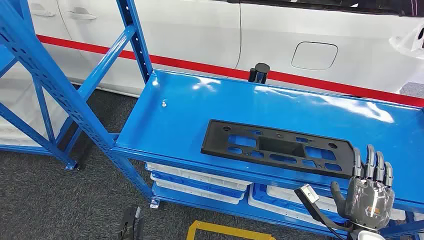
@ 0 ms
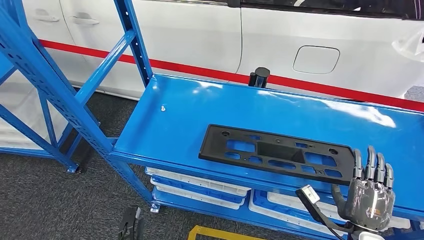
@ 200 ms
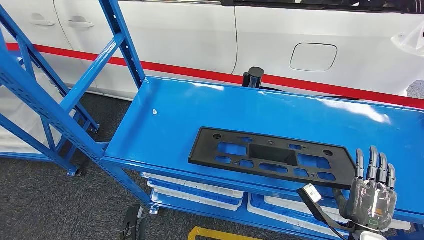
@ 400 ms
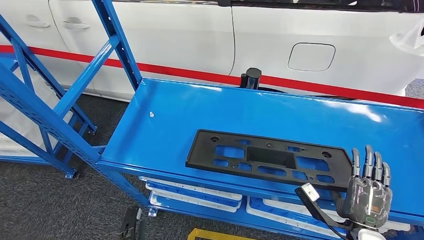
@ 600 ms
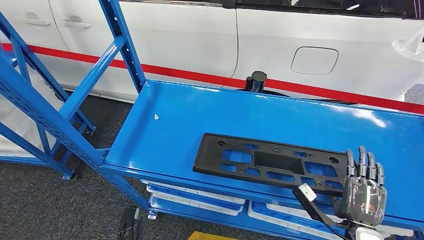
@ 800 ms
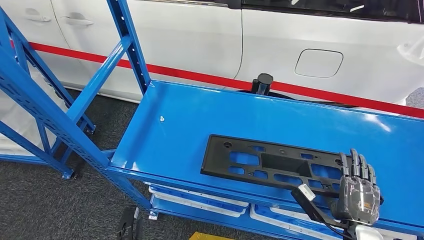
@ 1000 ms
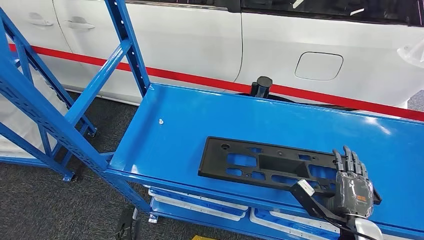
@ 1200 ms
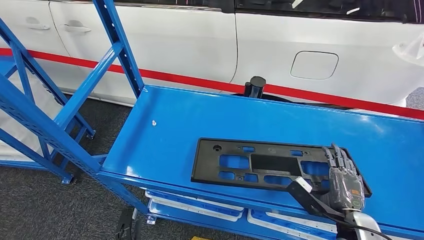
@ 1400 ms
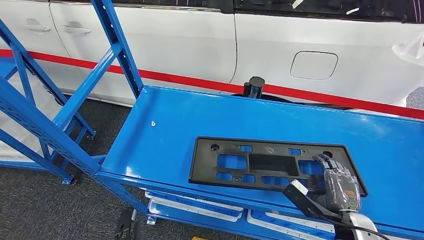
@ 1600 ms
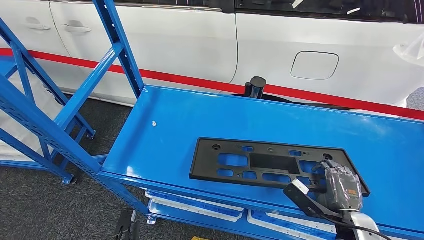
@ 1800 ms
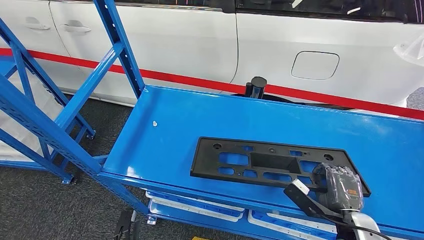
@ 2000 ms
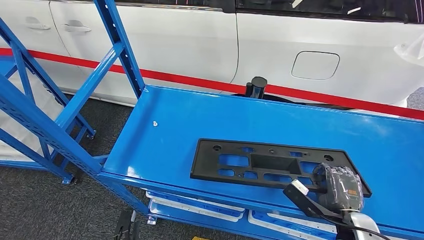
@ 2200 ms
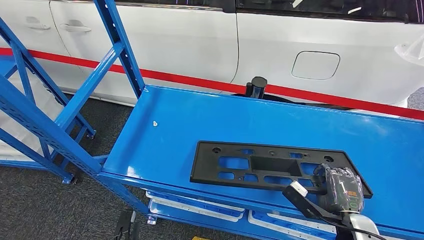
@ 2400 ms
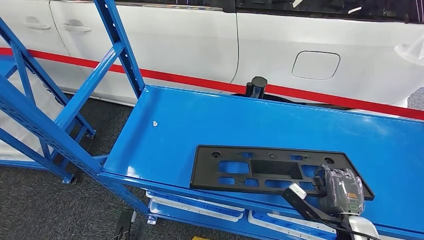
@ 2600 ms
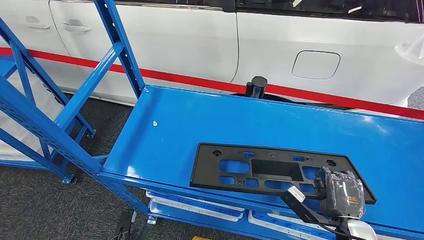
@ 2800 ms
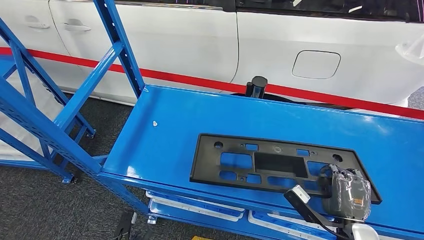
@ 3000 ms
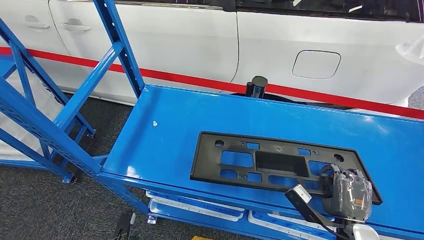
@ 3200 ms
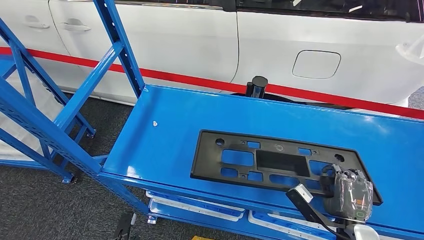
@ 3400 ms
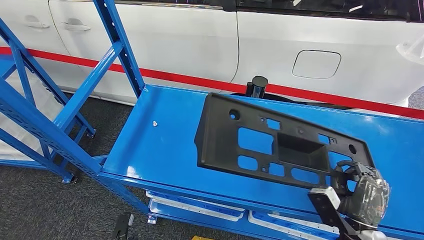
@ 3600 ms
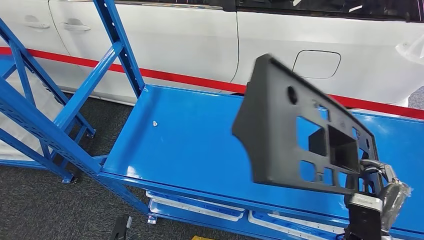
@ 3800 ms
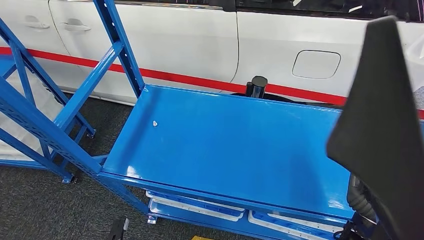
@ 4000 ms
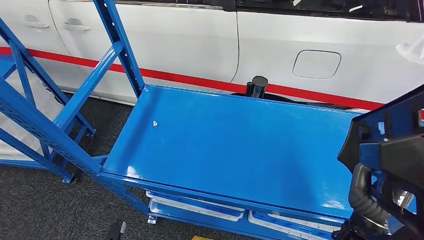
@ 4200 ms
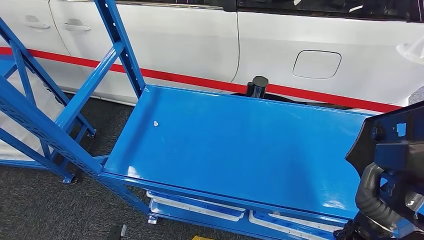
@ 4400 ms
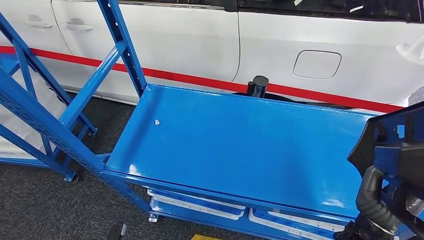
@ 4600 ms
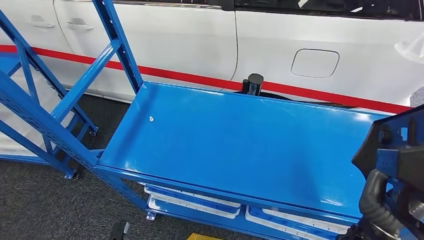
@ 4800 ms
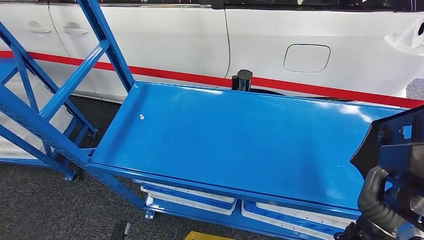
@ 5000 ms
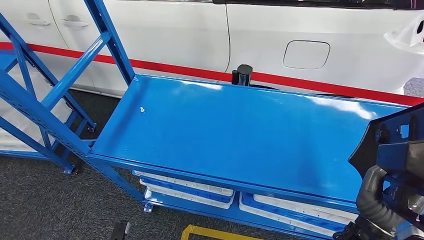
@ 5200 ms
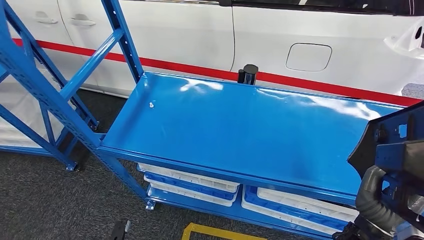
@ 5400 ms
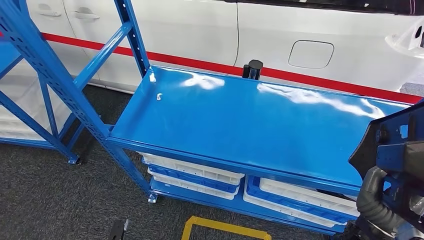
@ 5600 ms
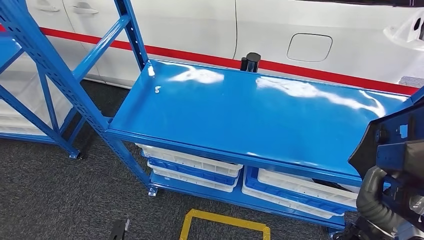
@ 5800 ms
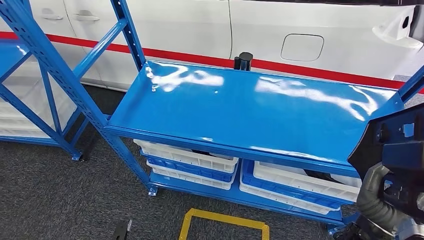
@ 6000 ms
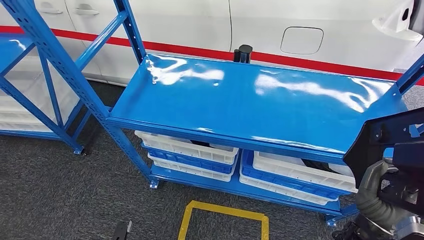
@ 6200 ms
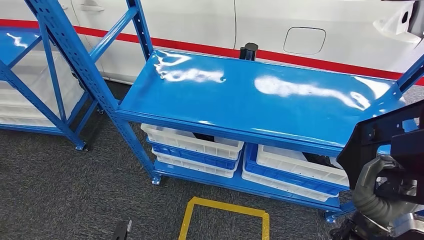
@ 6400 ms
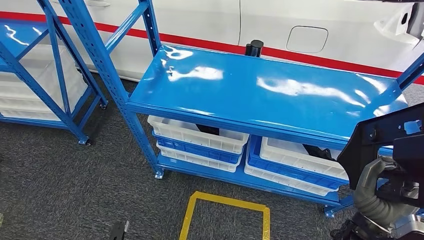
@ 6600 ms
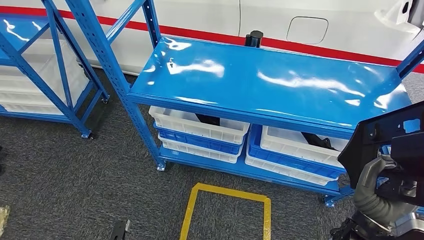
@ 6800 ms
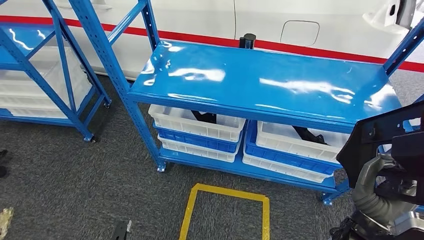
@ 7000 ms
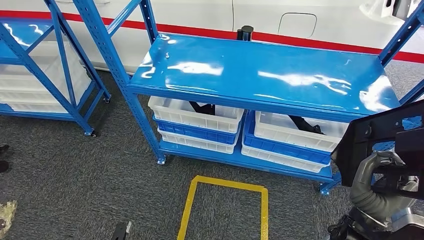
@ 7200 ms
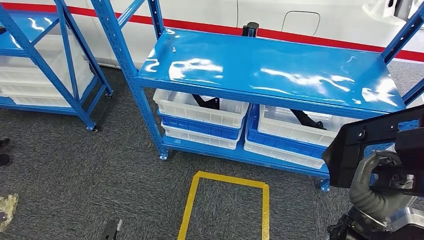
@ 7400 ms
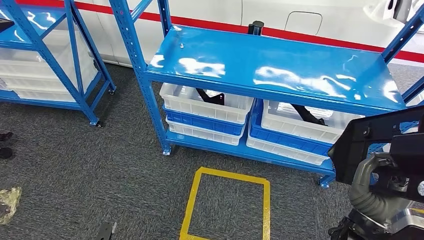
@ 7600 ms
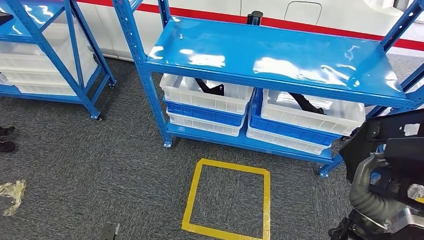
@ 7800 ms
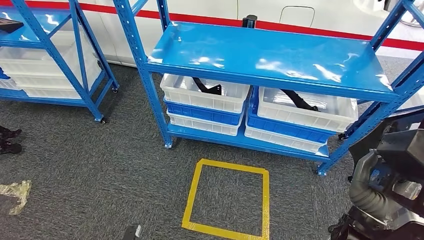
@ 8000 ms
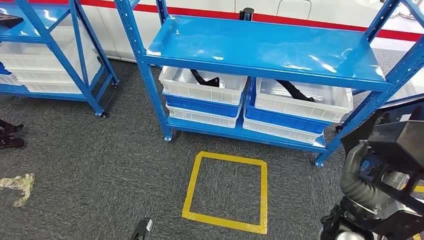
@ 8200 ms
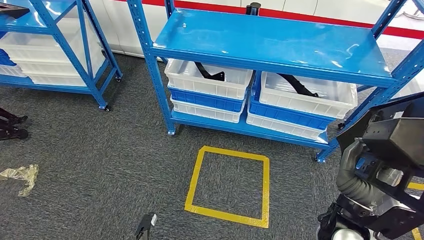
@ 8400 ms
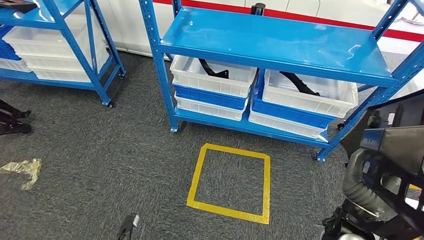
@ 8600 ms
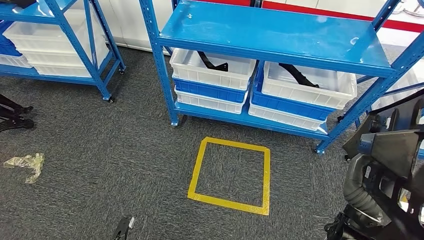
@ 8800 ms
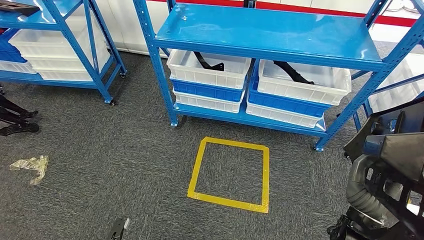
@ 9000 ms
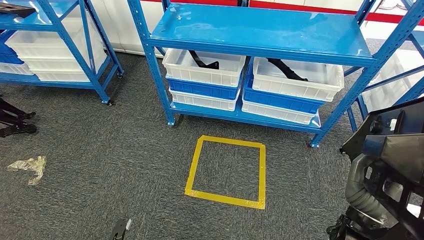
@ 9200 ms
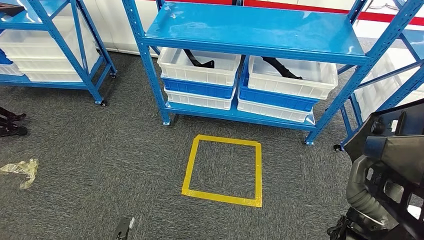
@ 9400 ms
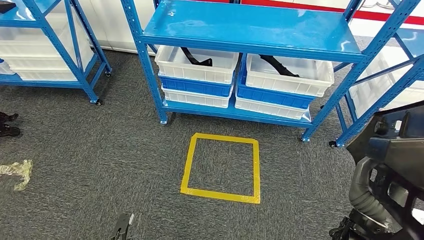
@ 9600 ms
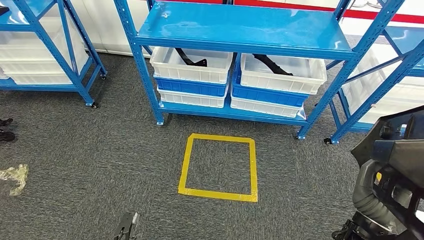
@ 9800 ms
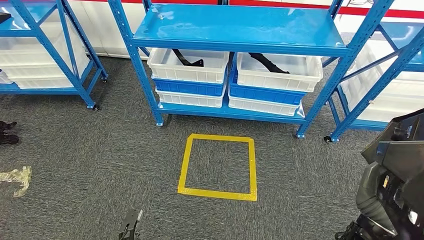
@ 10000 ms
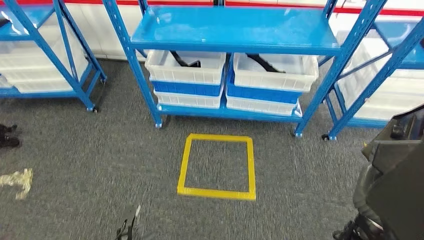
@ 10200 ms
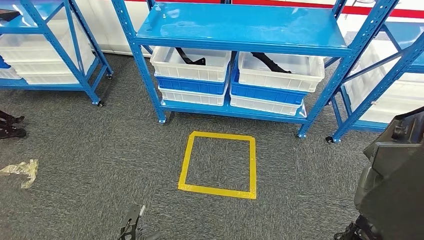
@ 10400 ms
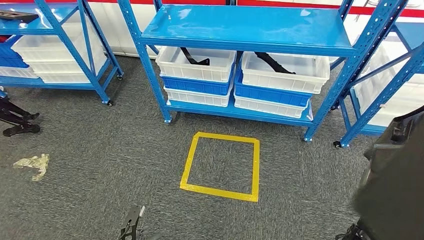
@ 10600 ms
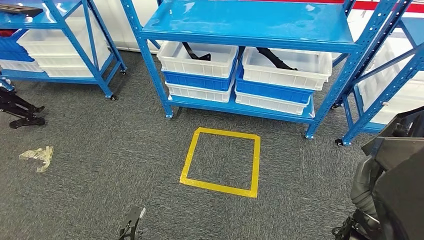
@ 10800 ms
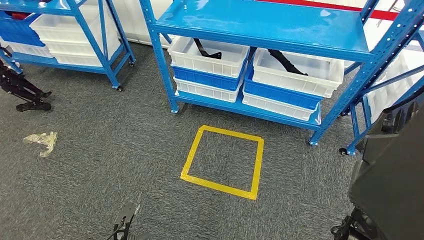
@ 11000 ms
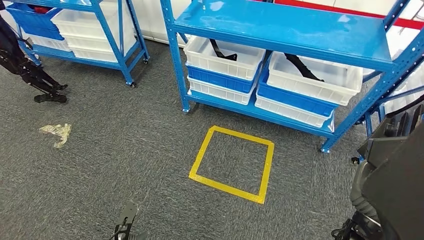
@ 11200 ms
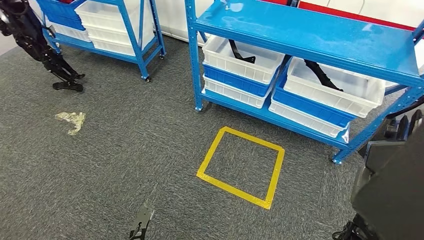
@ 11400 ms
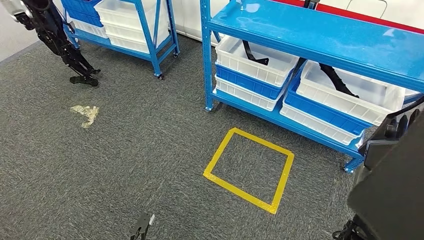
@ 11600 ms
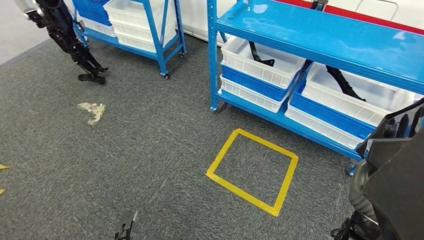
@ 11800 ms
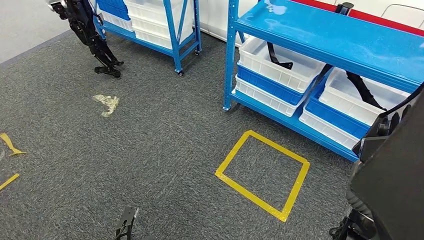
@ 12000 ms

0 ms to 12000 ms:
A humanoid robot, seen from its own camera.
Step, 0 ms to 5000 ms: Pick up the large material from the shelf.
1600 ms to 3000 ms: There are only small adjustments of the hands.
3000 ms to 4400 ms: The right hand goes roughly 5 cm upward.

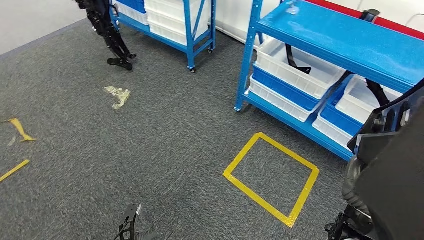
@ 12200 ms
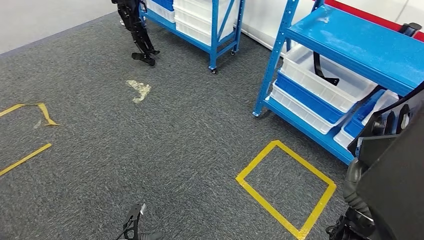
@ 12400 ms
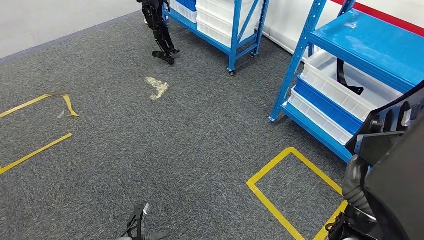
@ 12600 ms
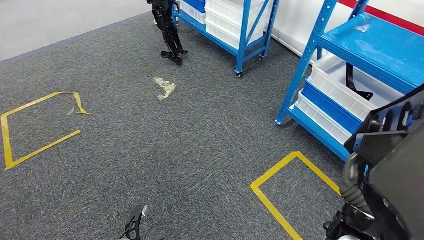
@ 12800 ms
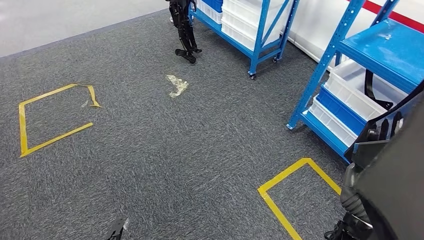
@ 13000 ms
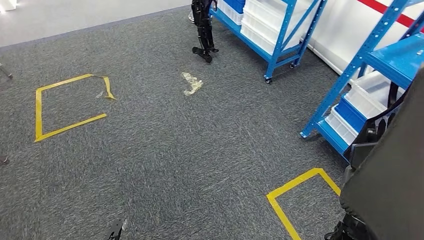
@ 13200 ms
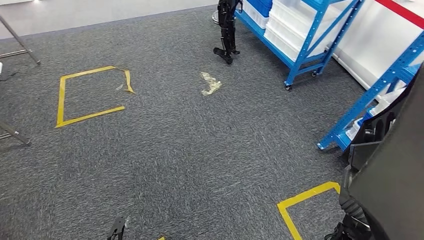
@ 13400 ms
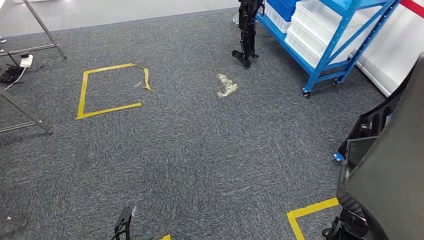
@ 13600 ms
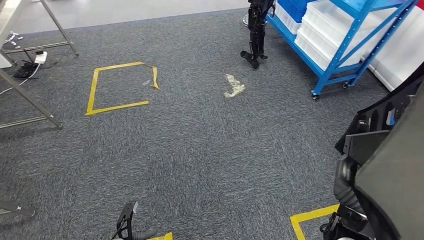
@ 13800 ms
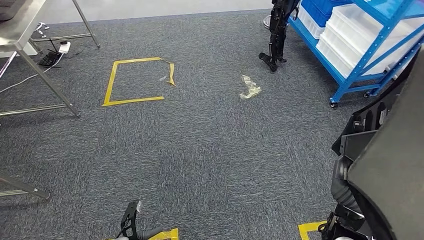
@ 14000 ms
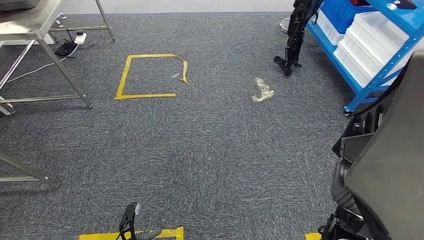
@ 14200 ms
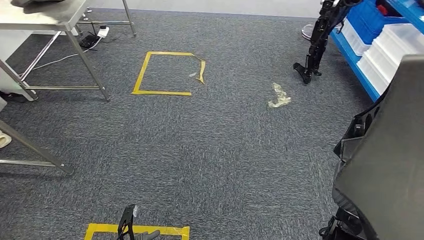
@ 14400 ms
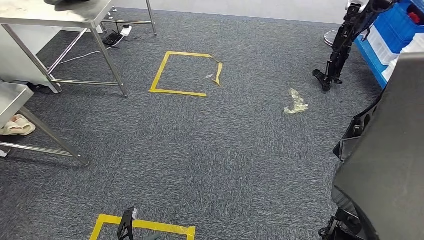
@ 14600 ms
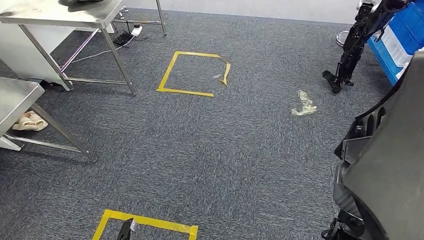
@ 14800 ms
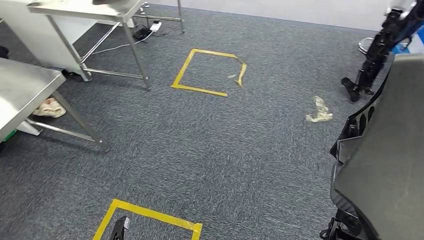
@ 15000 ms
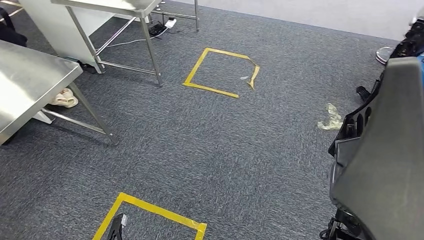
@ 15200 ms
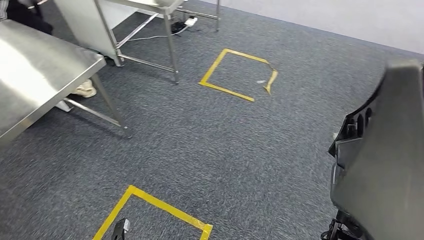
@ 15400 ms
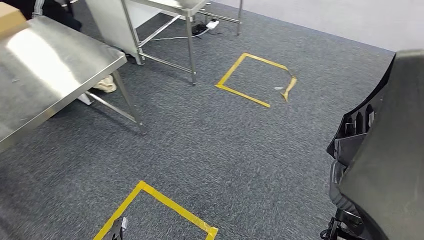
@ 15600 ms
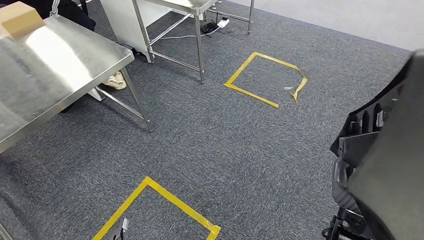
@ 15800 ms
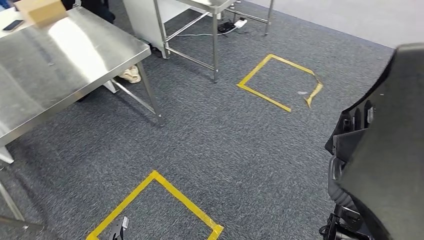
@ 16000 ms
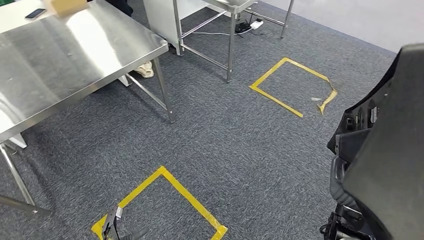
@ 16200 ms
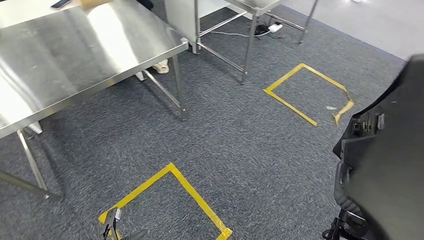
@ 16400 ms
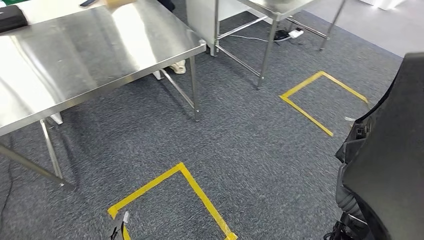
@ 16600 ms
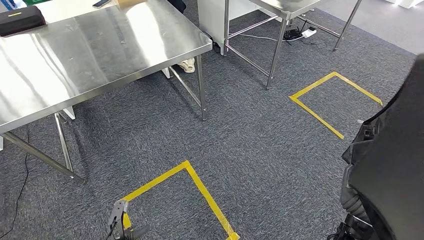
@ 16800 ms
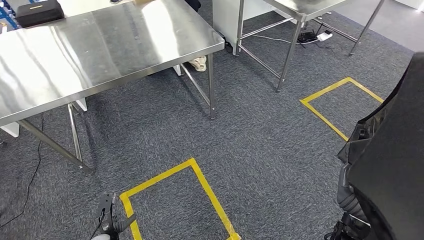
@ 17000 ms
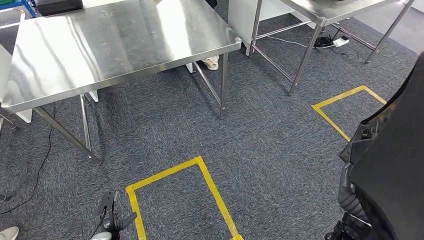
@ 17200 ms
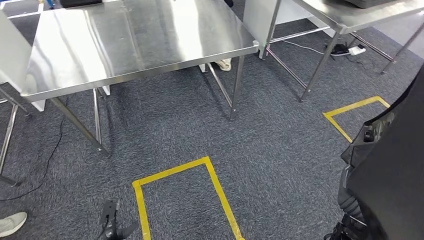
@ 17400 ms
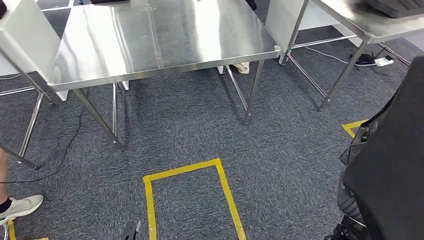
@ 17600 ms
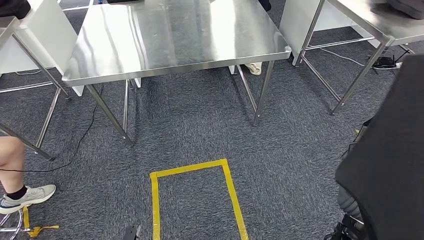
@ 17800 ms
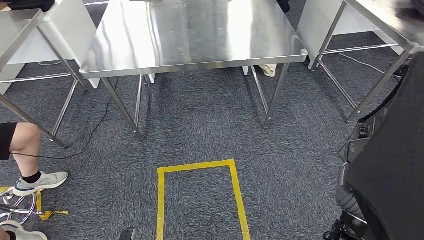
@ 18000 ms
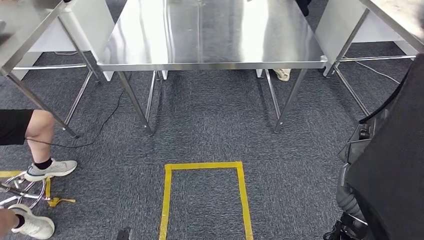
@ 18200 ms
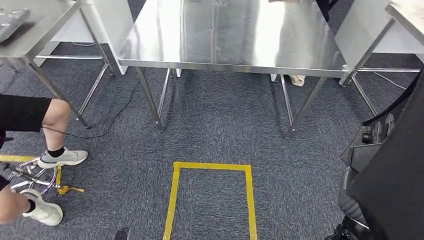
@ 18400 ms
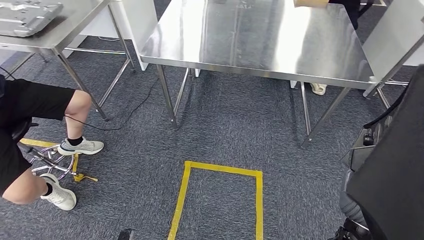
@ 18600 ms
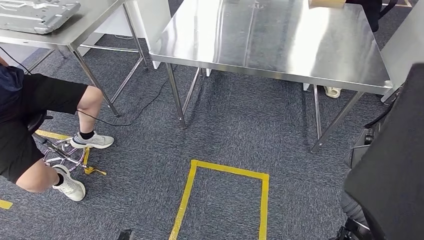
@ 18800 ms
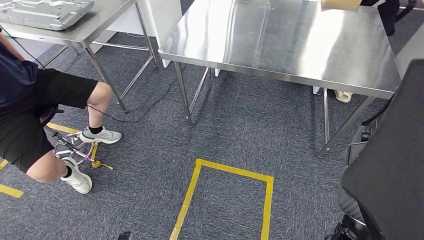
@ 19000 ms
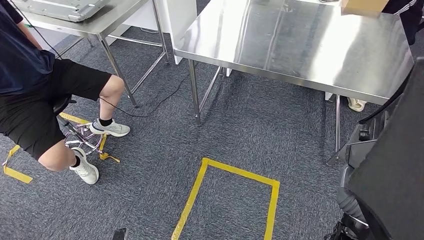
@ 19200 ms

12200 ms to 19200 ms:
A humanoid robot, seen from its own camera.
Step, 12200 ms to 17400 ms: Move the large material to the workbench.
